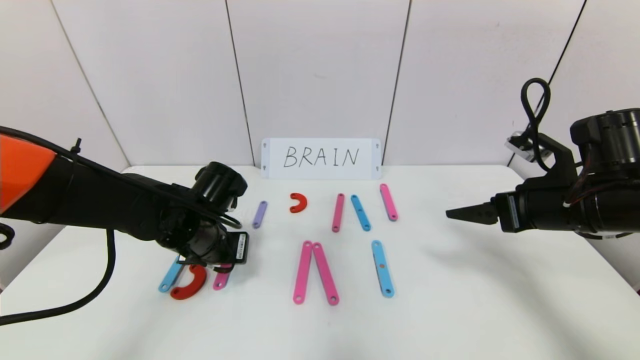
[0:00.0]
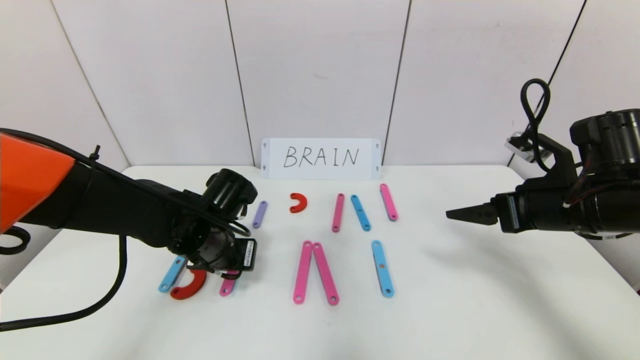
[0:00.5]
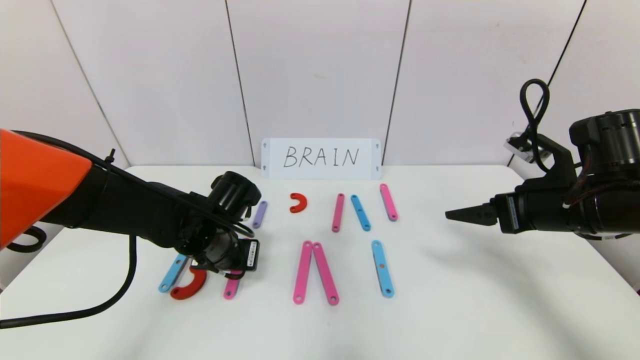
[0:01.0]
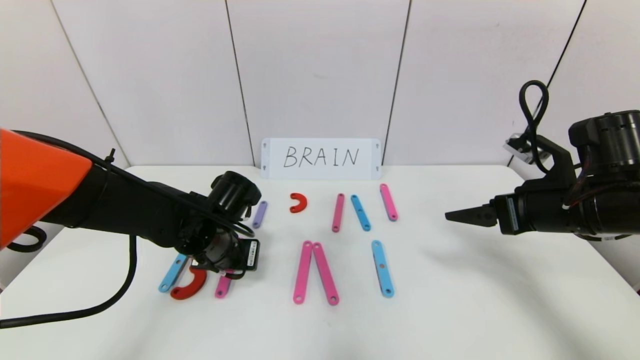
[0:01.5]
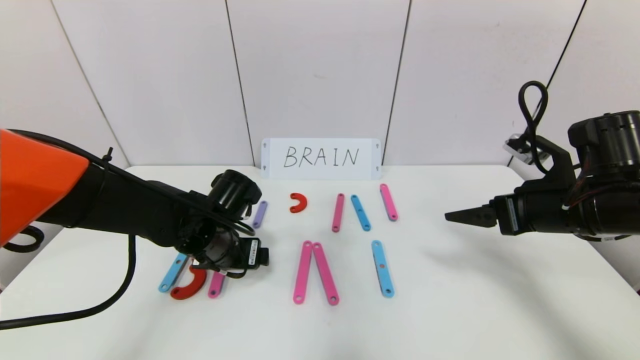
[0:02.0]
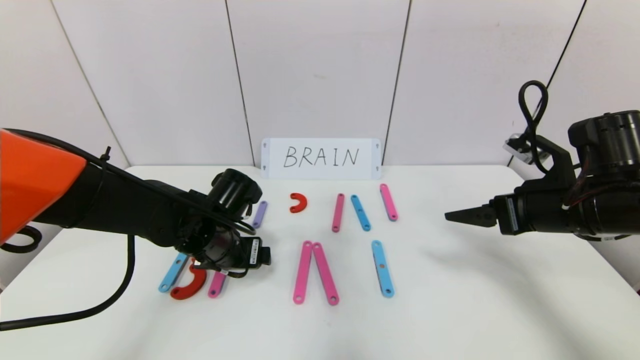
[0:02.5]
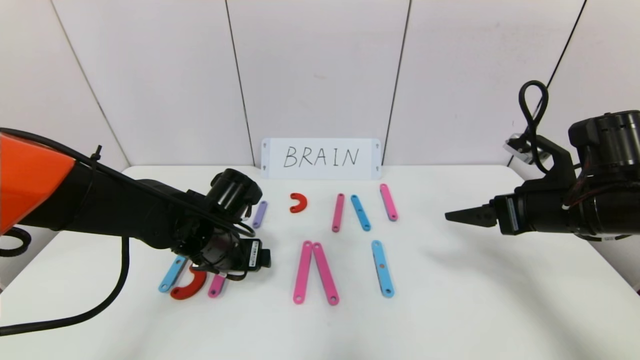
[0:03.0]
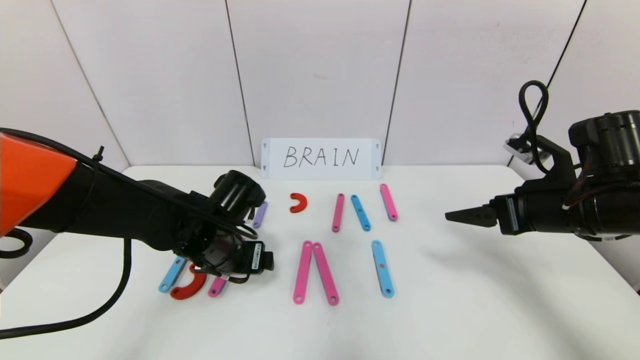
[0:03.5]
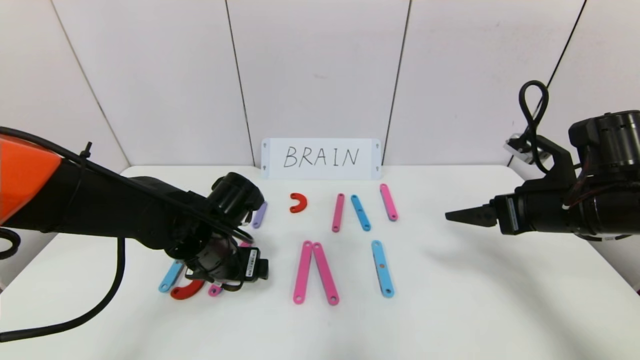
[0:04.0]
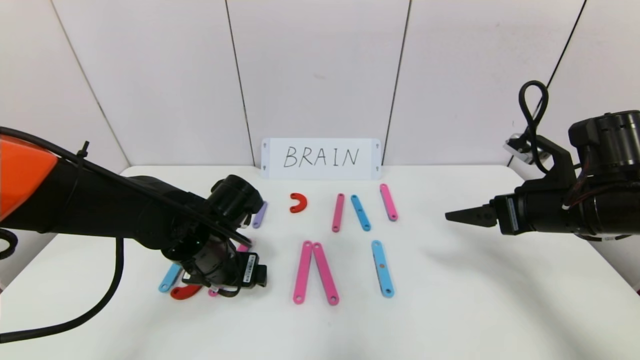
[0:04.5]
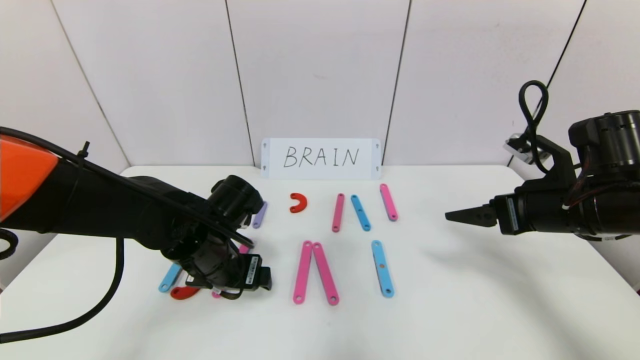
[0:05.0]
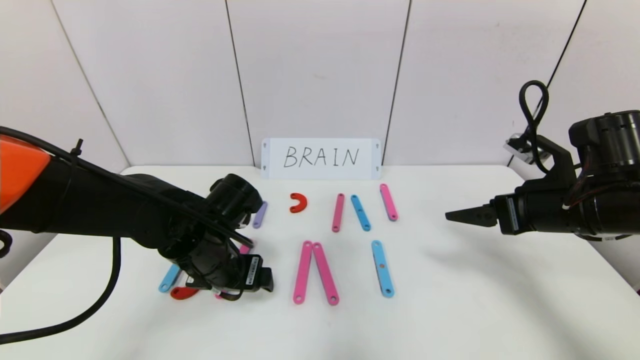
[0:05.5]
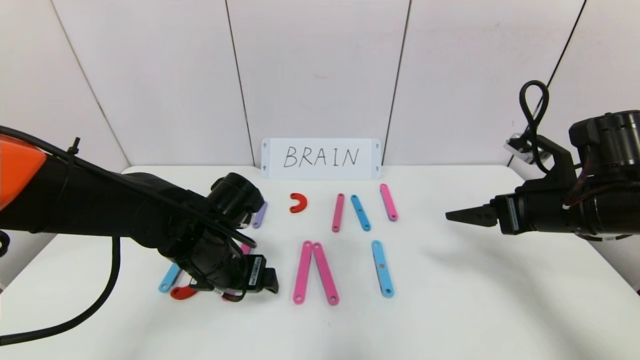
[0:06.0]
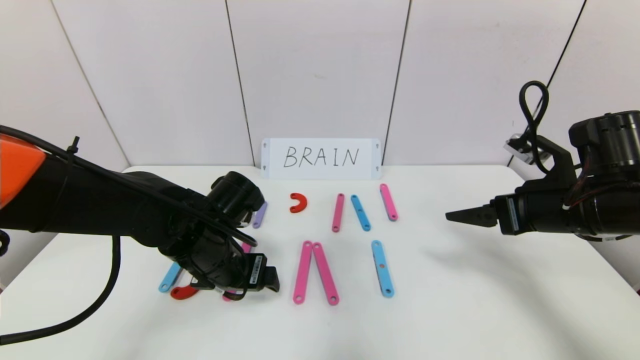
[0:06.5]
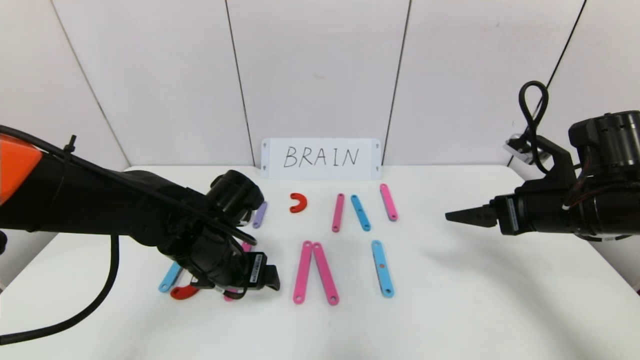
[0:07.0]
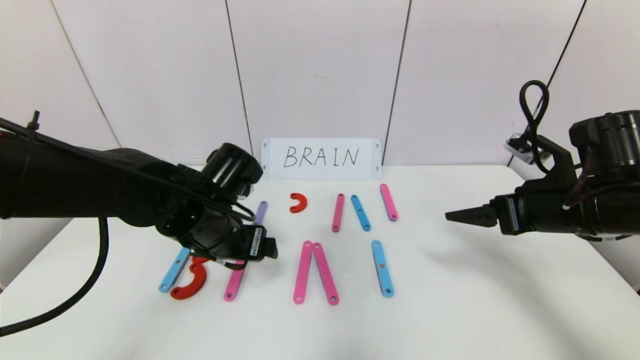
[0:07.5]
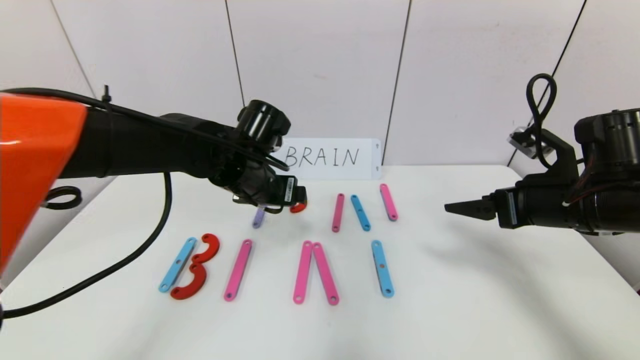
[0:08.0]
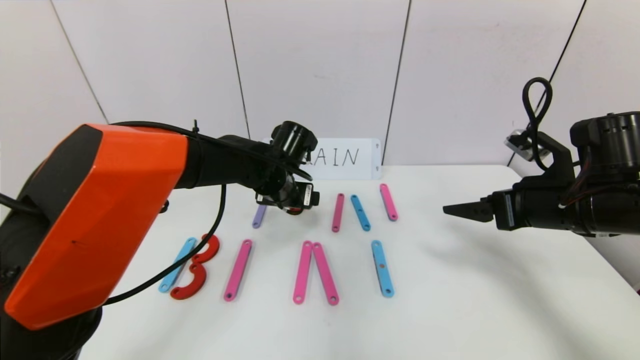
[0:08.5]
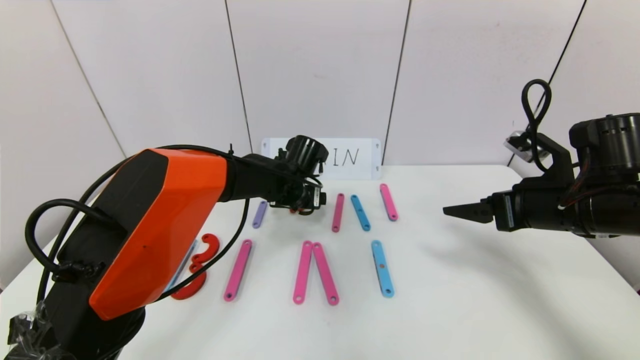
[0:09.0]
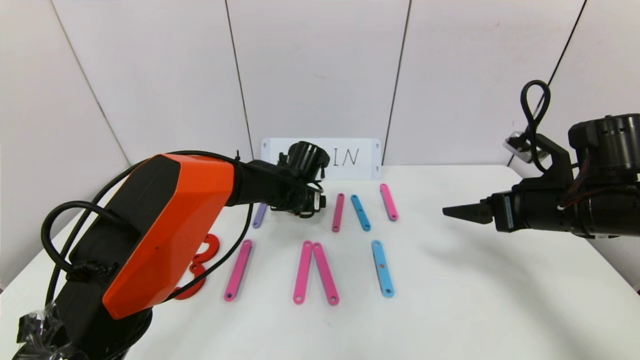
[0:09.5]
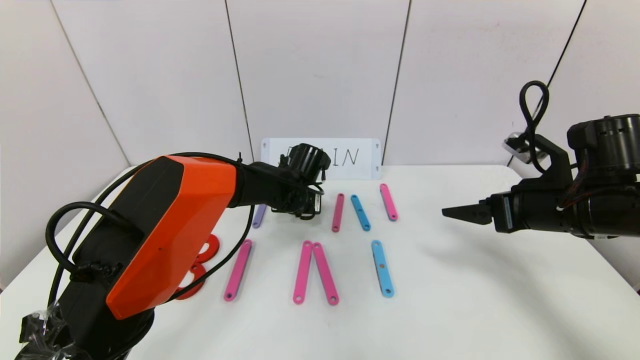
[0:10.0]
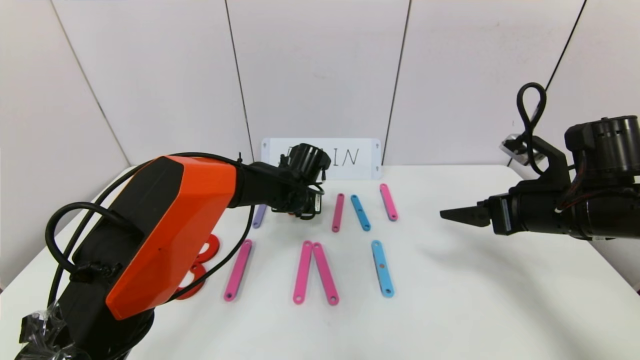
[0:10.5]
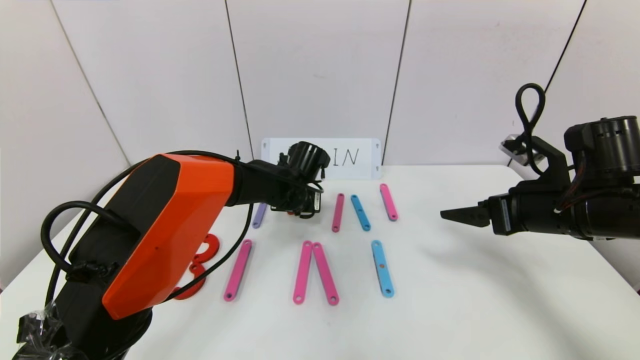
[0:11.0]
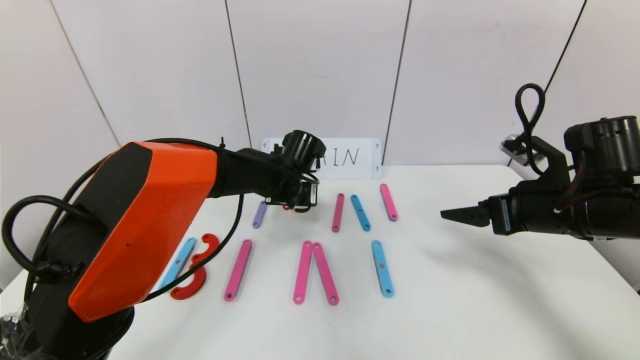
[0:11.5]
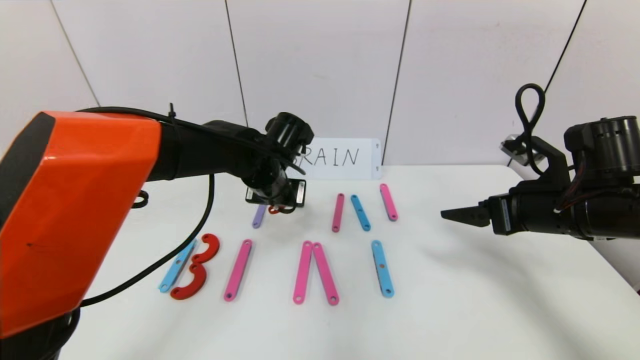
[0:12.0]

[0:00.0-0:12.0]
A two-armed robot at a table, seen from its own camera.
Task of the whole recording: rearrange the word baai as brain.
0.0 to 2.0 s: The left gripper opens its fingers.
2.0 to 6.0 s: The grippers make only small movements.
6.0 to 8.0 s: The left gripper is displaced forward and upward by approximately 10 cm.
8.0 to 10.0 s: The left gripper shifts some 15 cm downward, forward and to the right, and closes up.
10.0 to 12.0 s: The left gripper shifts about 10 cm upward and backward, and closes up.

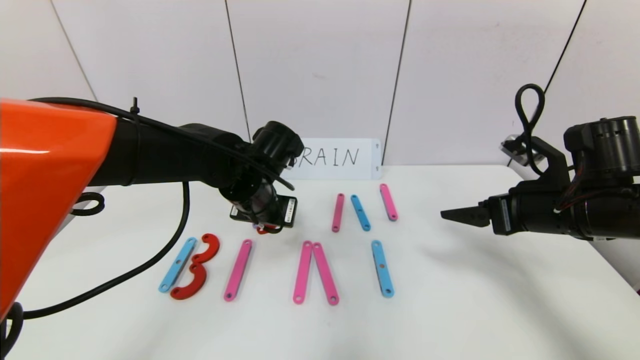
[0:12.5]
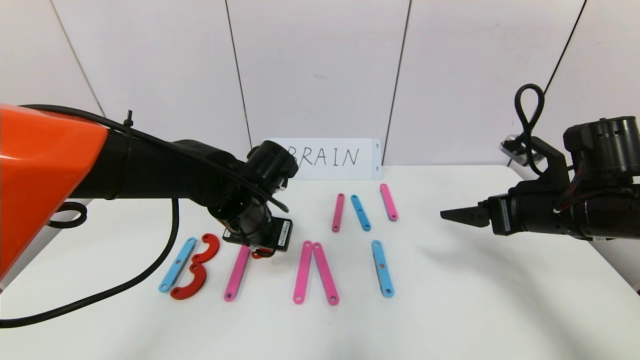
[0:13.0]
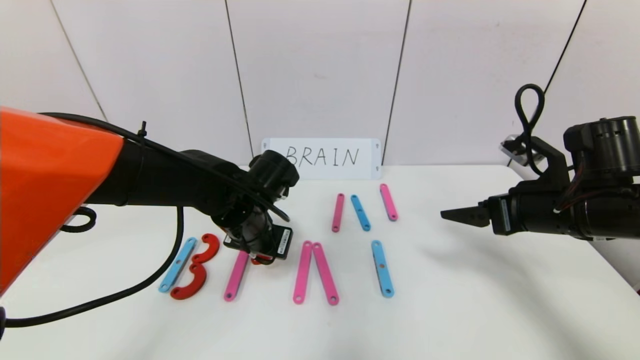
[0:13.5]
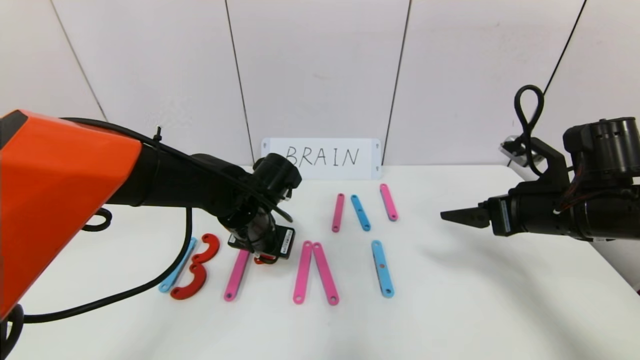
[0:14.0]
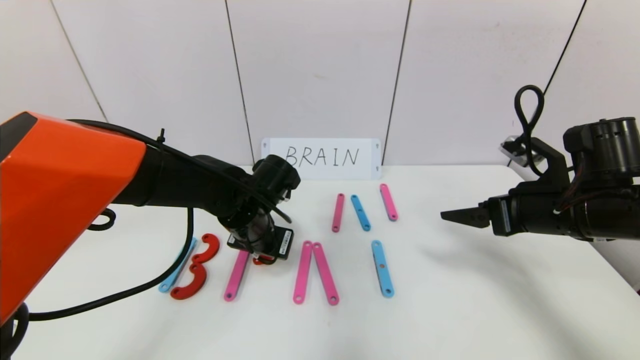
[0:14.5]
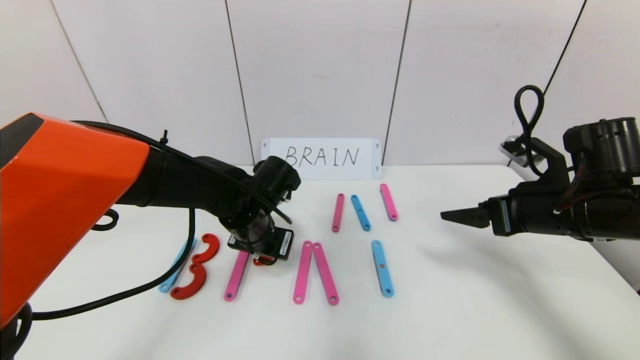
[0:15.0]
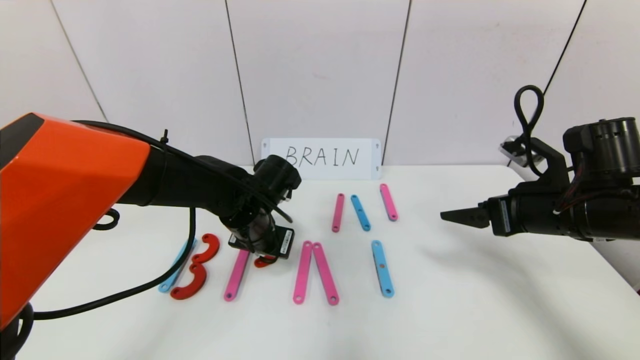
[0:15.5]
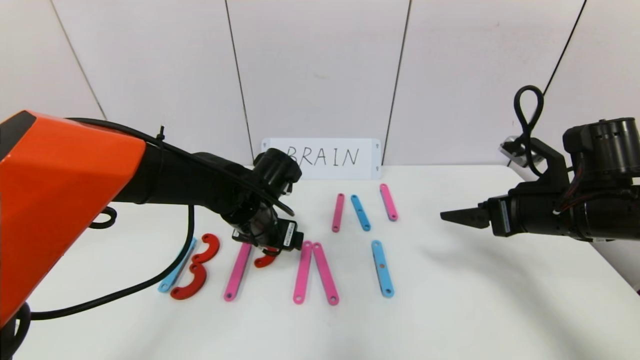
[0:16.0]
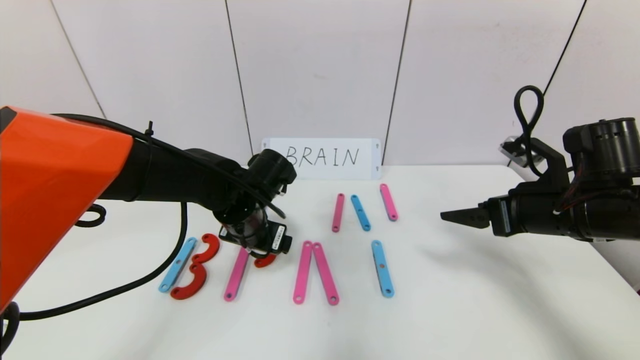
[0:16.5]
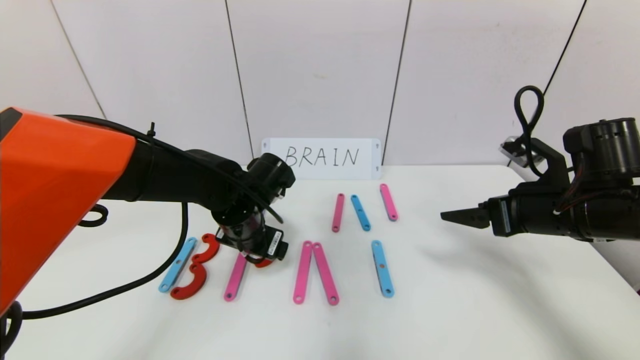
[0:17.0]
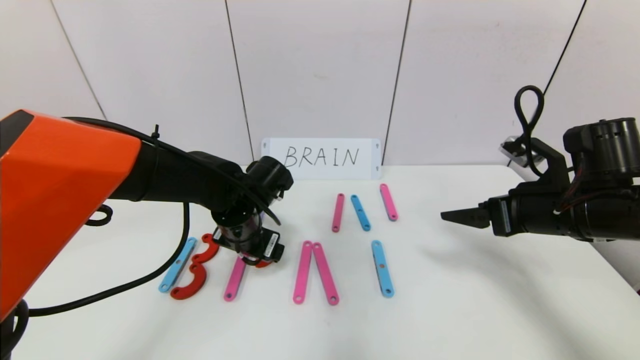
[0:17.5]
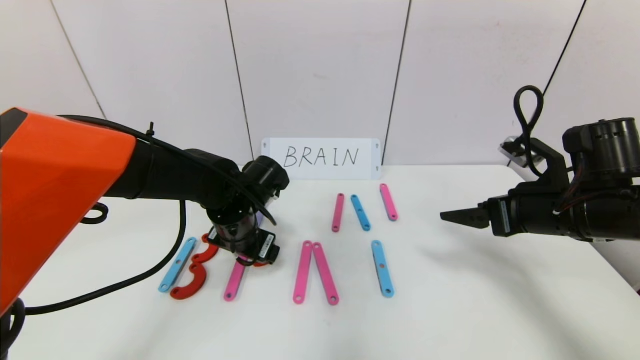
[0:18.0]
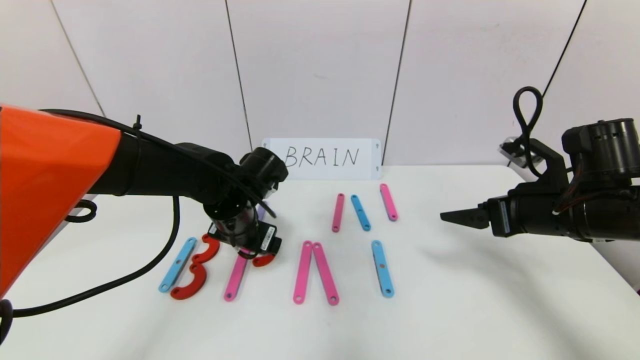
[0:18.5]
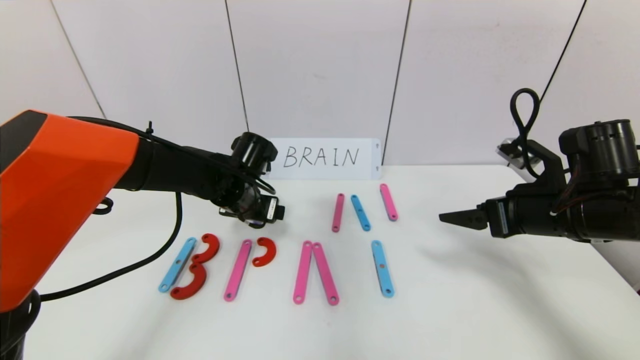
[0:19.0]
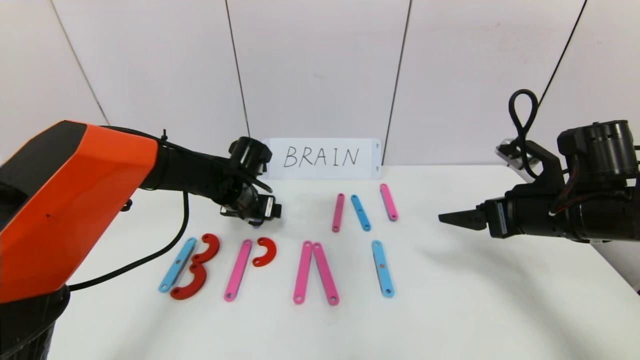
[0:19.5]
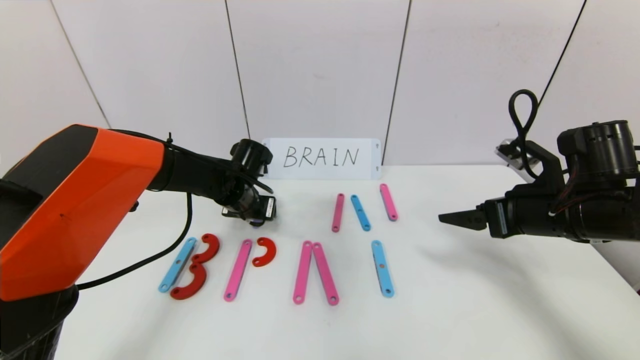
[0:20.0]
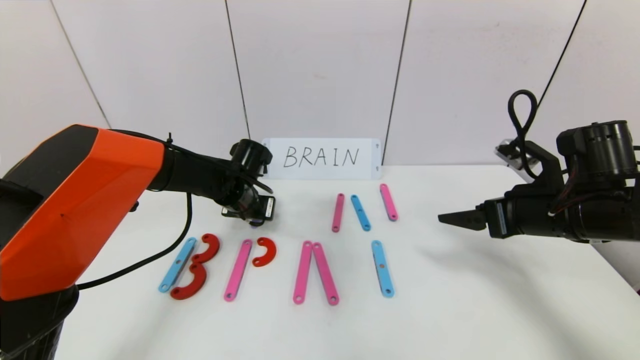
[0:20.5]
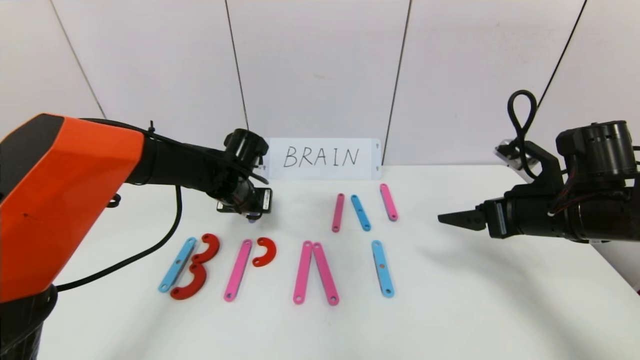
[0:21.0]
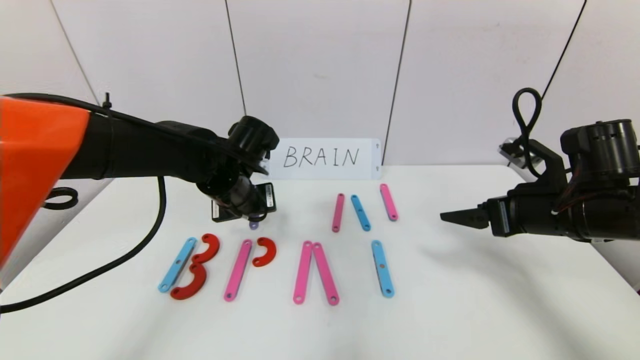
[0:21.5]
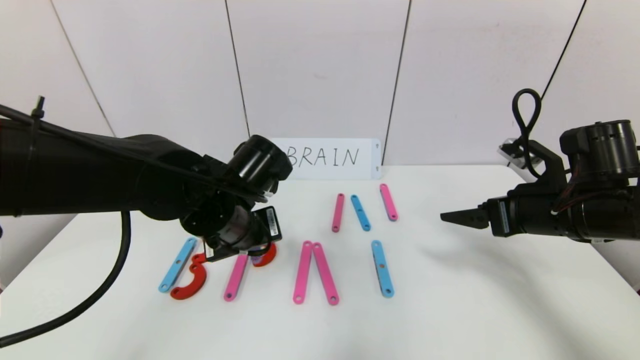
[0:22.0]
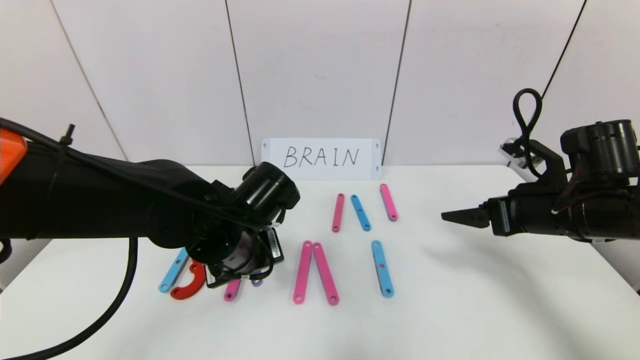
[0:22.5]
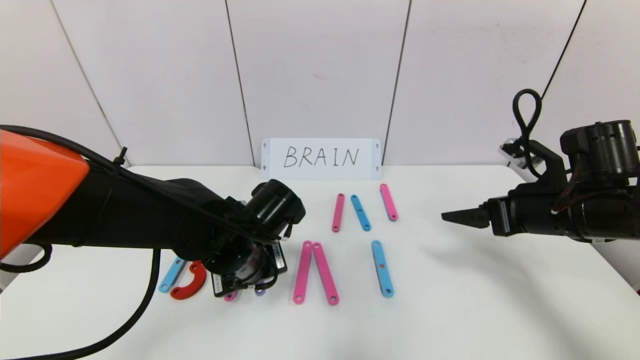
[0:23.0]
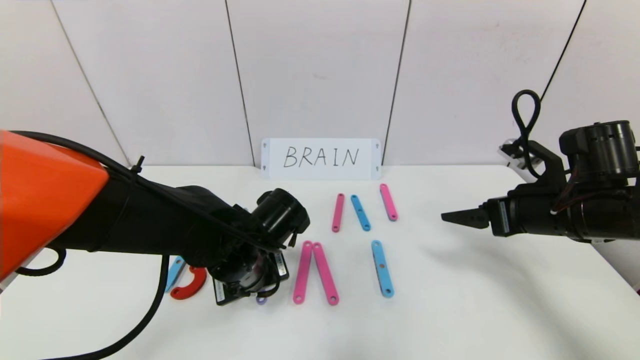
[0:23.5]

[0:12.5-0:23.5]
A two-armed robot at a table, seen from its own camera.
Task of the whole recording: rearrange the word baai as brain.
12.5 to 14.5 s: The grippers move only a little.
14.5 to 16.0 s: The left gripper opens.
16.0 to 18.0 s: The grippers stay close to where they were, moving slightly.
18.0 to 20.0 s: The left gripper moves forward, some 10 cm.
20.0 to 21.5 s: The left gripper shifts approximately 10 cm backward and upward, and closes up.
21.5 to 23.5 s: The left gripper is displaced backward and downward by roughly 10 cm.
